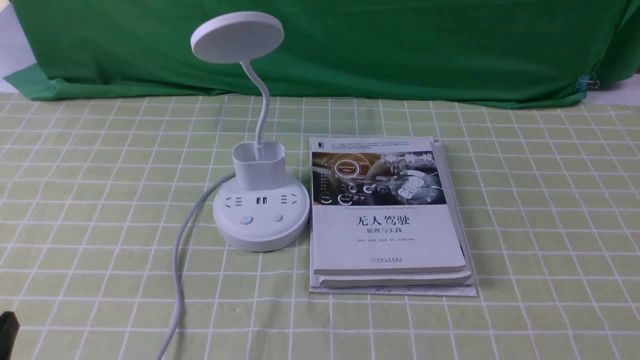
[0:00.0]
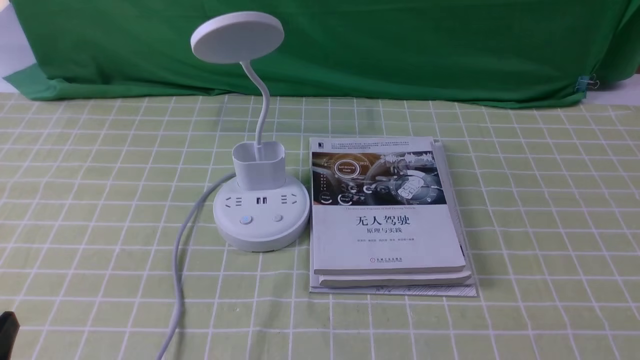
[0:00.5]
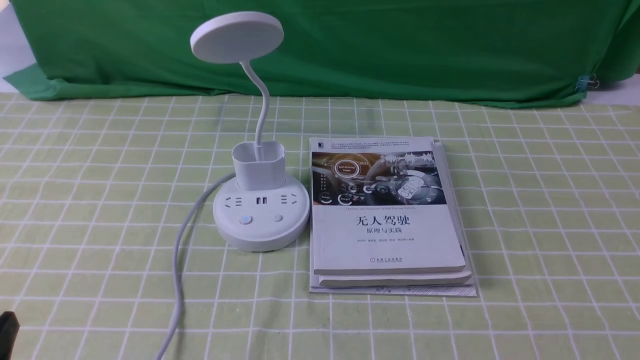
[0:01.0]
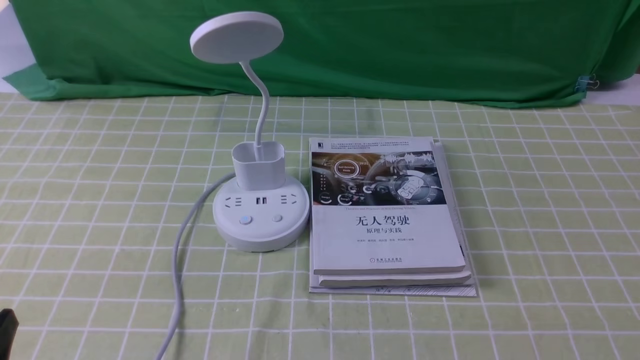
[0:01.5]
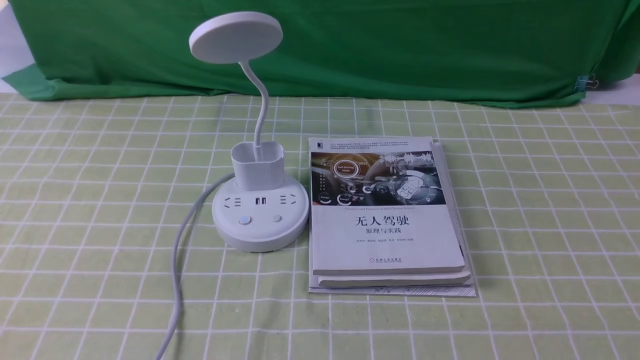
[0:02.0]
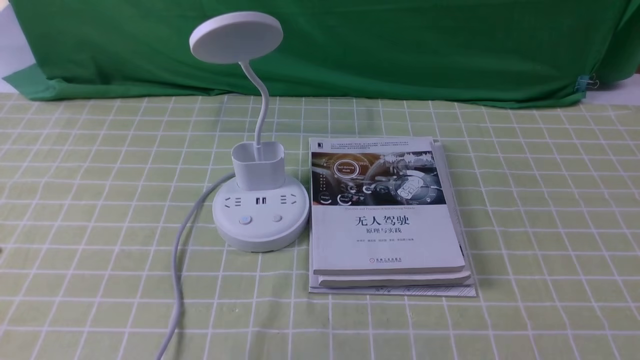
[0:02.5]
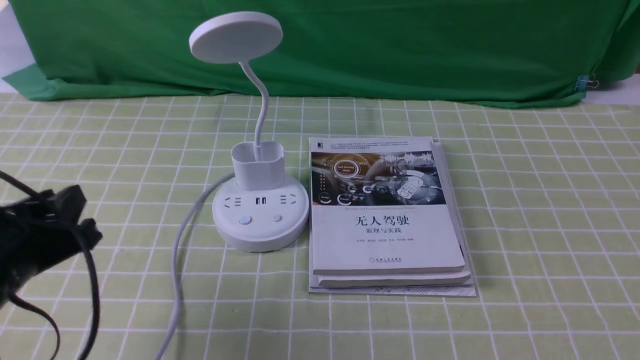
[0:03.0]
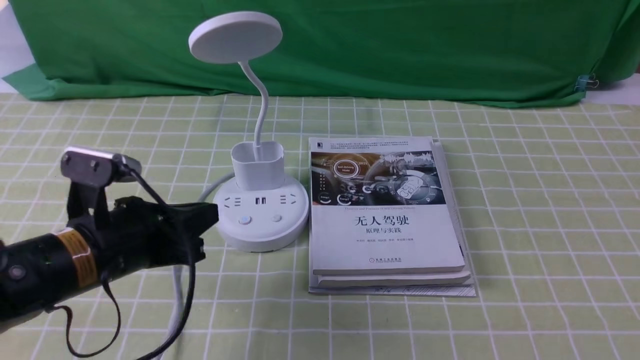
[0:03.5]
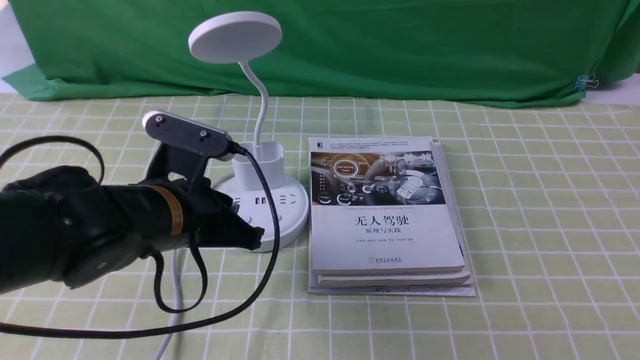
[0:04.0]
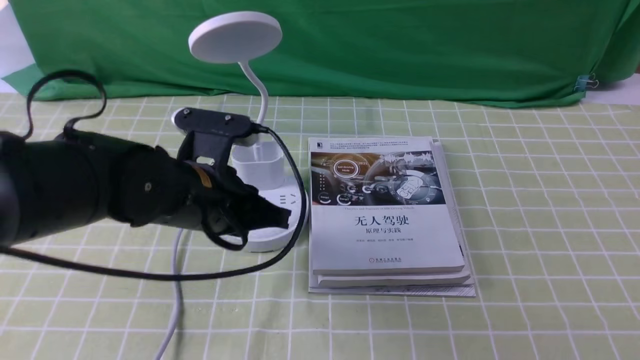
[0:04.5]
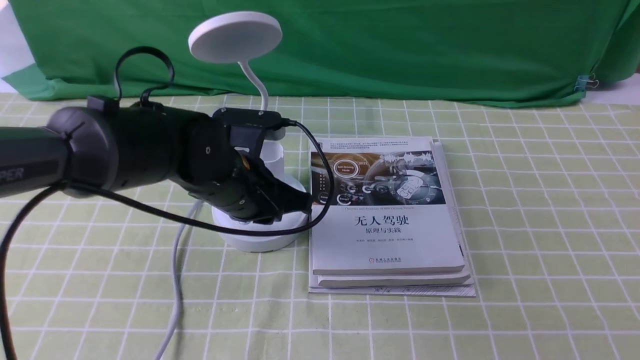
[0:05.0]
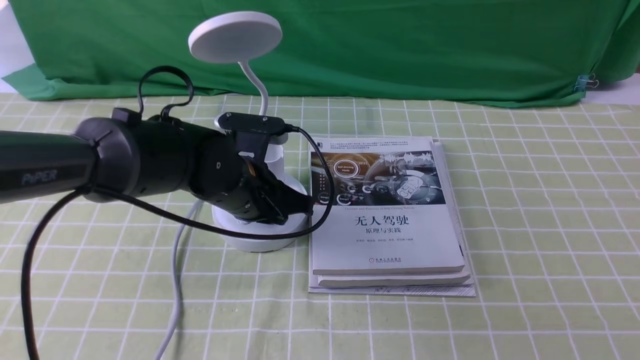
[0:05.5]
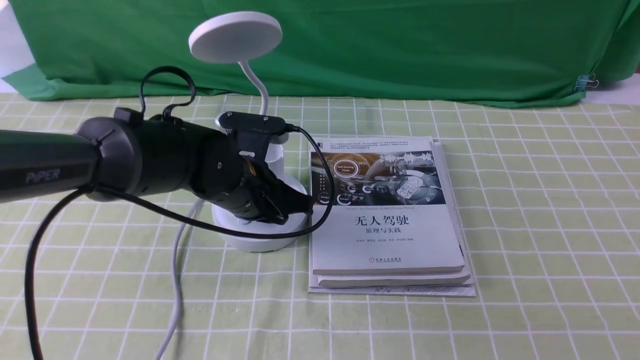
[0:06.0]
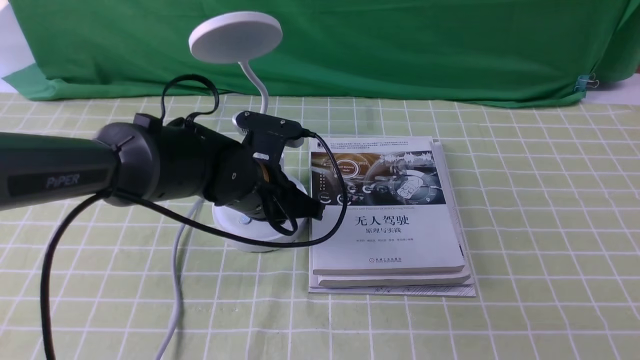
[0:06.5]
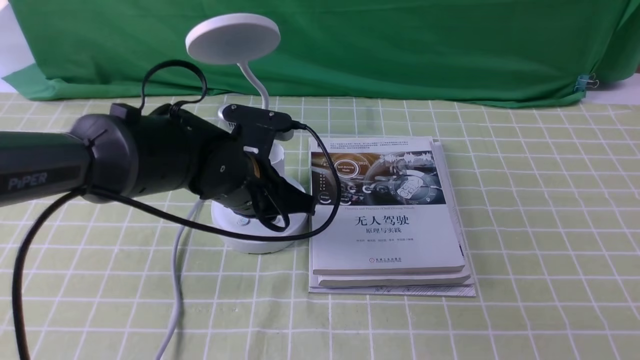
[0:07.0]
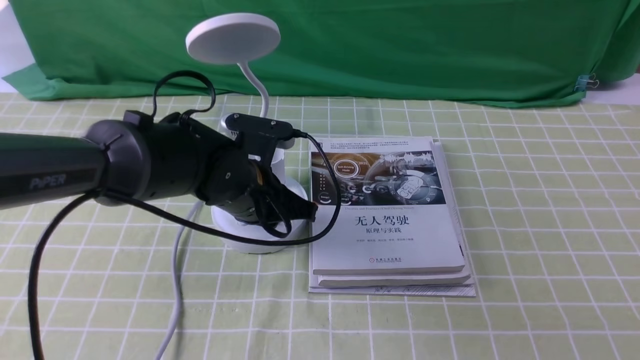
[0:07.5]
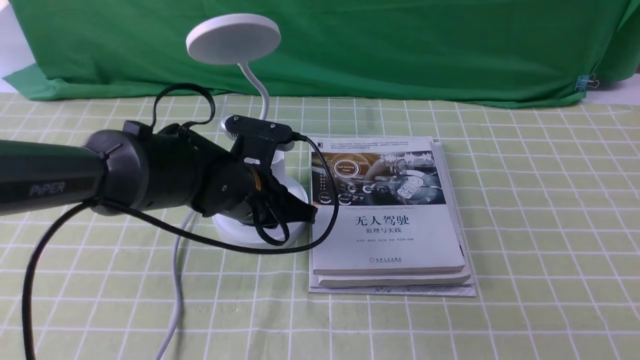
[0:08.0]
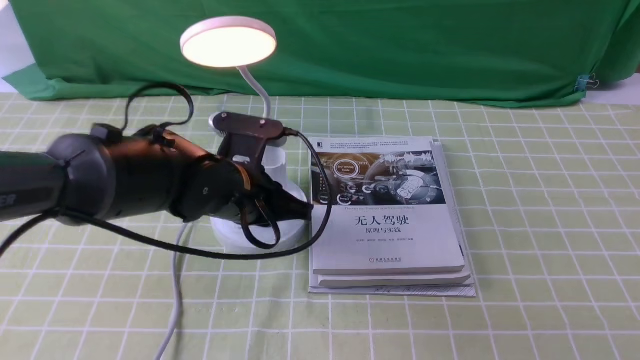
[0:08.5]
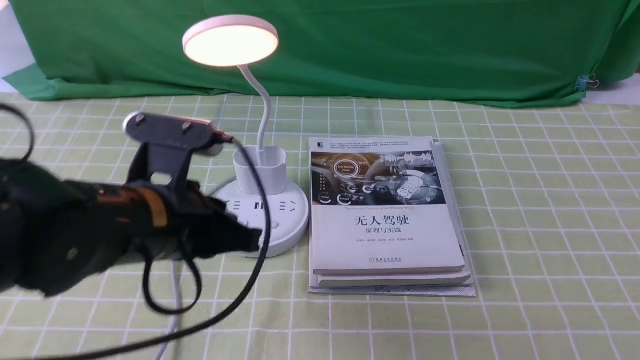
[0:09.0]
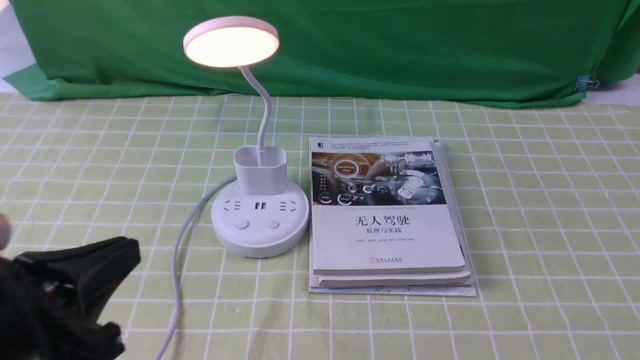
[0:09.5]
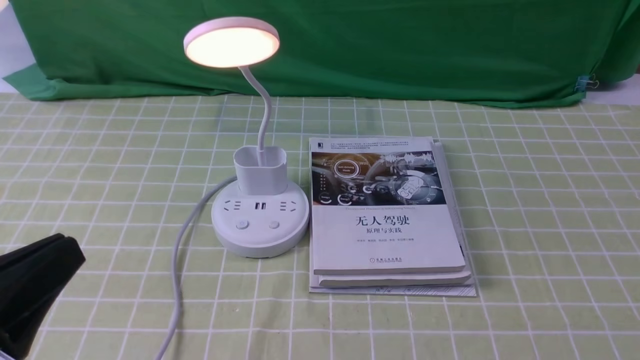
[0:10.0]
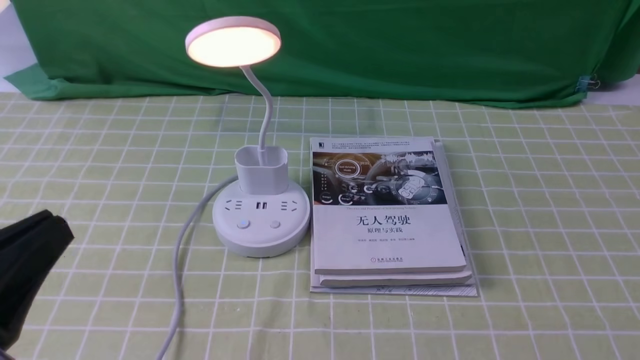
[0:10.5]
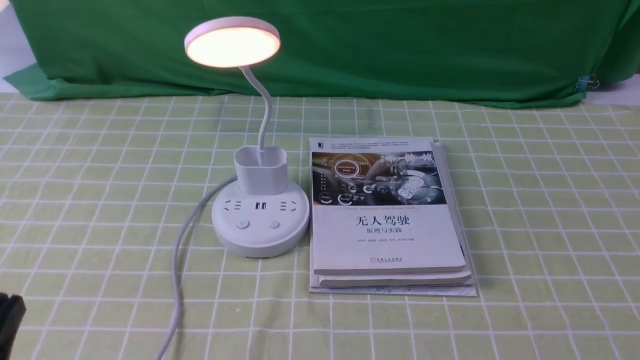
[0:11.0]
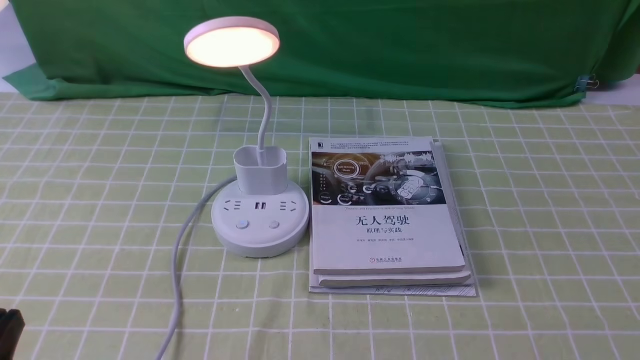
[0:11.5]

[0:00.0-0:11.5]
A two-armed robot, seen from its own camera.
Step, 0:00.0 to 0:08.5: use the left arm to press the button switch on the lamp holder.
0:02.0 to 0:04.0: The left gripper is displaced forward and to the right by roughly 25 cm, and closes up.
0:04.0 to 0:06.0: The left gripper travels forward and to the right by some 10 cm.
0:06.0 to 0:07.5: There are only small adjustments of the grippers.
0:07.5 to 0:09.5: The left gripper heads backward, to the left and upward, covering roughly 25 cm.
0:09.5 to 0:11.5: The left gripper travels backward, downward and to the left by approximately 15 cm.

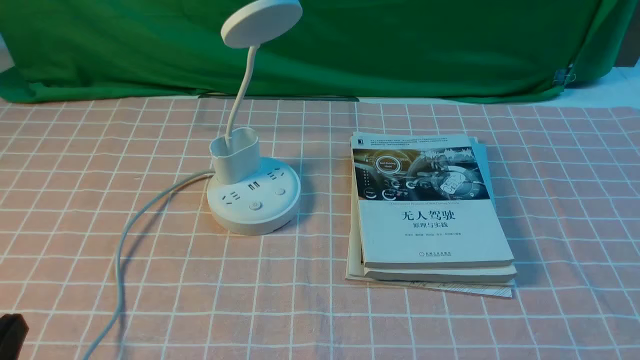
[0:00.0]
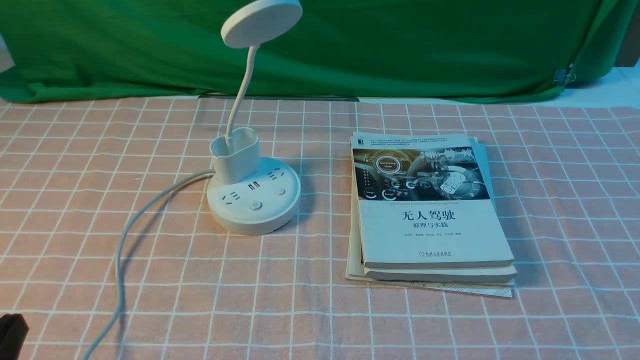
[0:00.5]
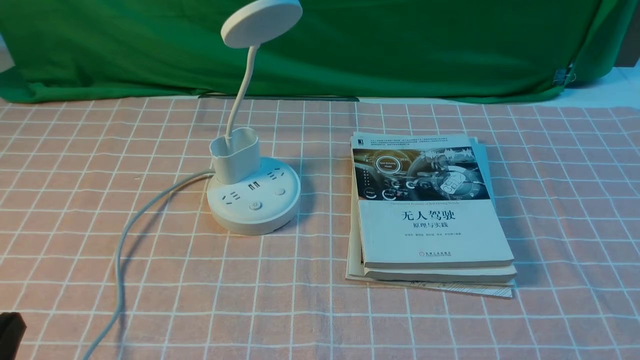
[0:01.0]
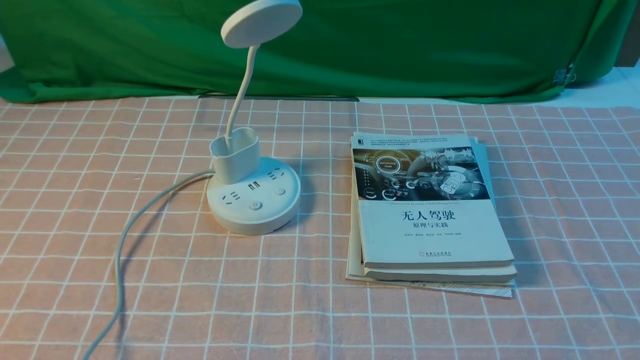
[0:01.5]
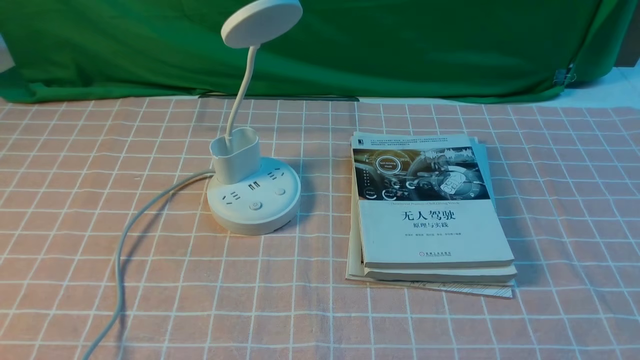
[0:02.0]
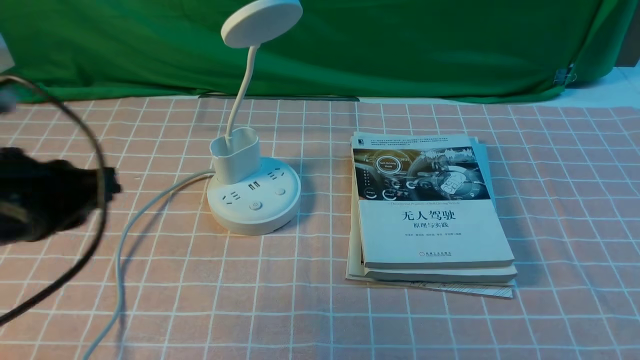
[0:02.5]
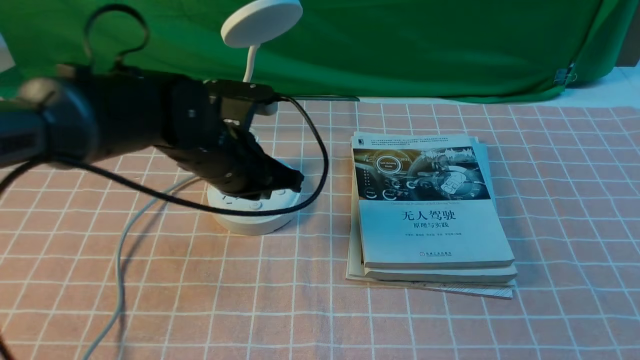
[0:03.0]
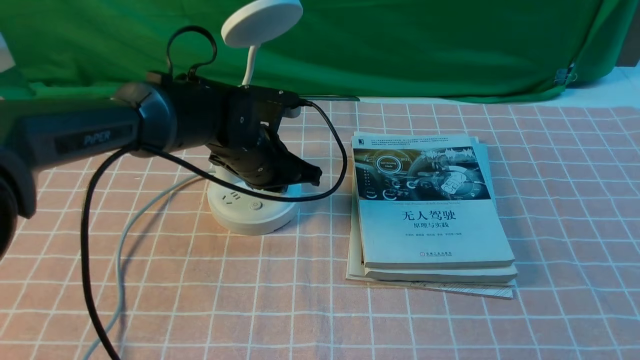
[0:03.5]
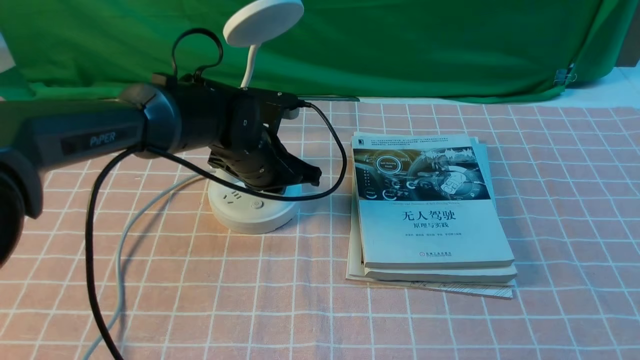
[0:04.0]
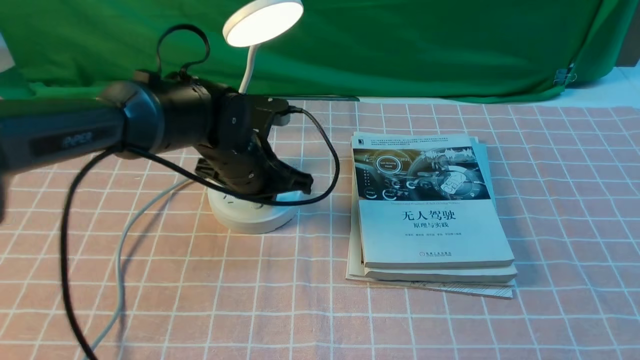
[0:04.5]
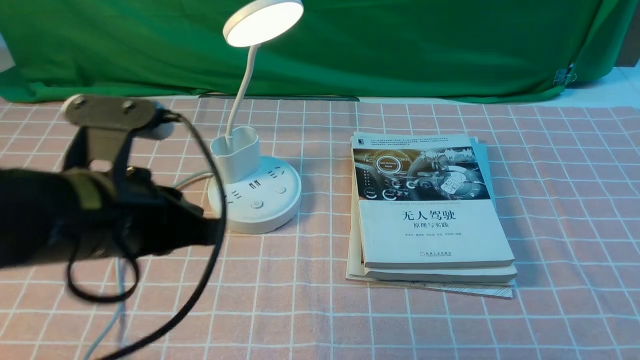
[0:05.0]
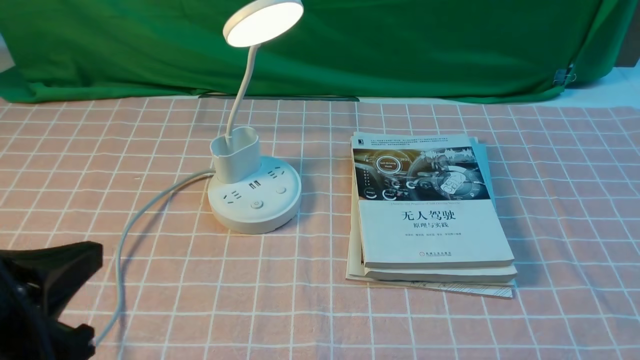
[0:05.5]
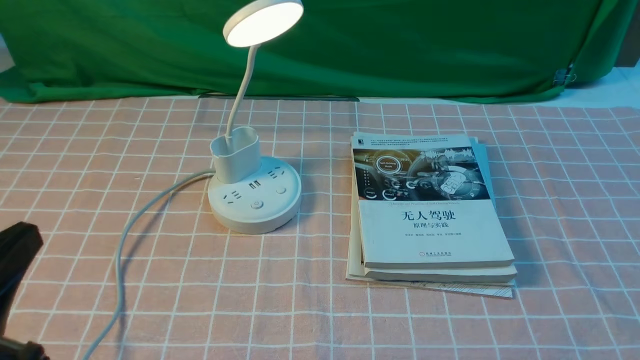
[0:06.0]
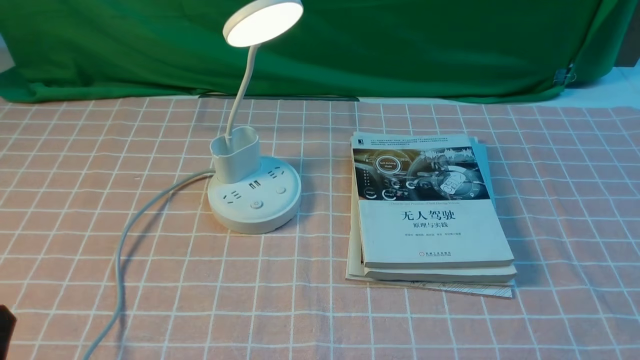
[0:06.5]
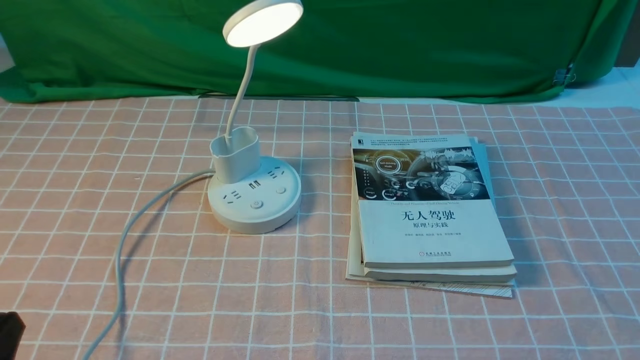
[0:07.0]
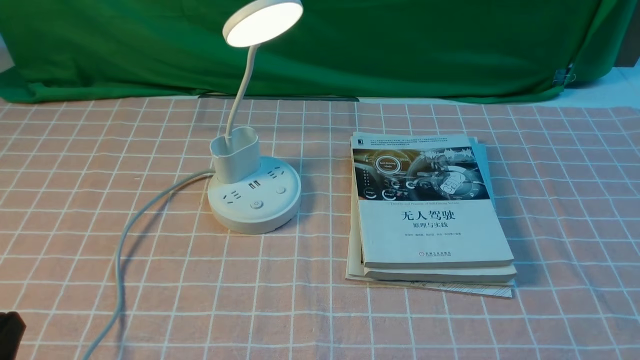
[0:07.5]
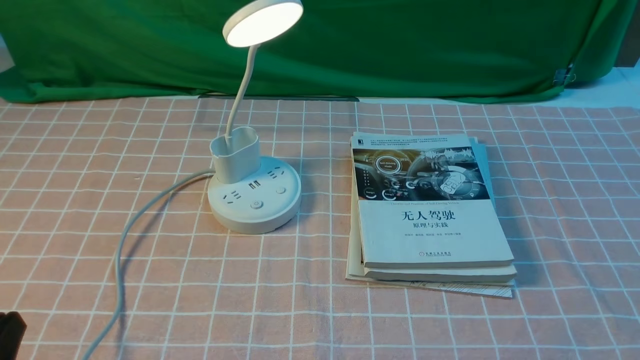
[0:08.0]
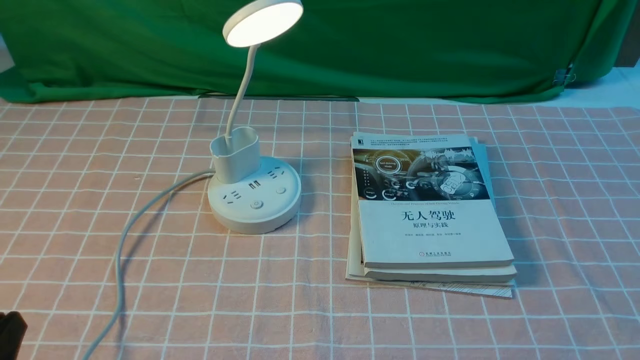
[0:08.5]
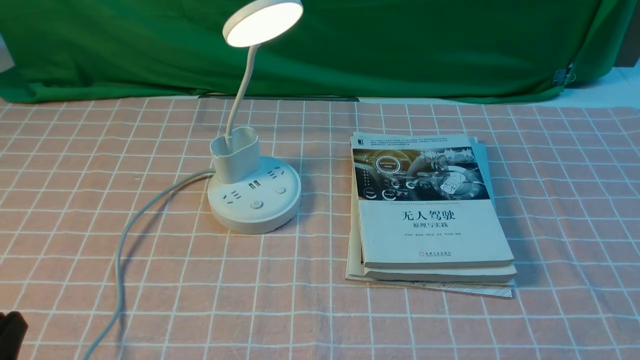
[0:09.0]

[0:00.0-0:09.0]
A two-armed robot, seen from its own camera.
Step, 0:00.0 to 0:04.5: use the left arm to press the button switch on the lamp holder.
0:02.0 to 0:04.5: The left gripper travels forward, to the right and downward by some 40 cm.
0:04.5 to 0:07.0: The left gripper moves backward and to the left, about 35 cm, and opens.
